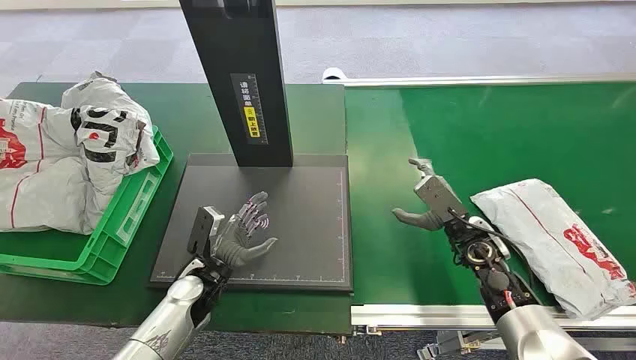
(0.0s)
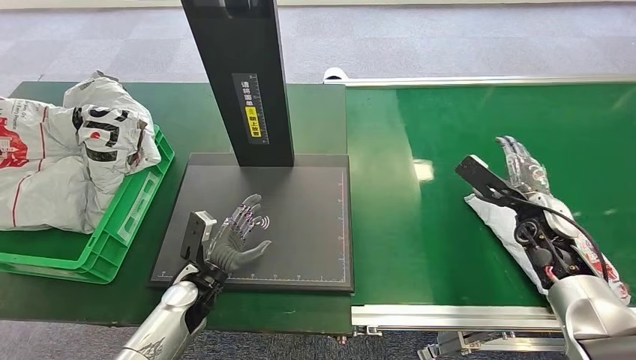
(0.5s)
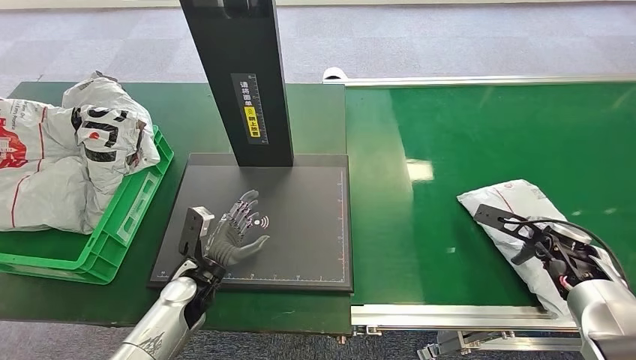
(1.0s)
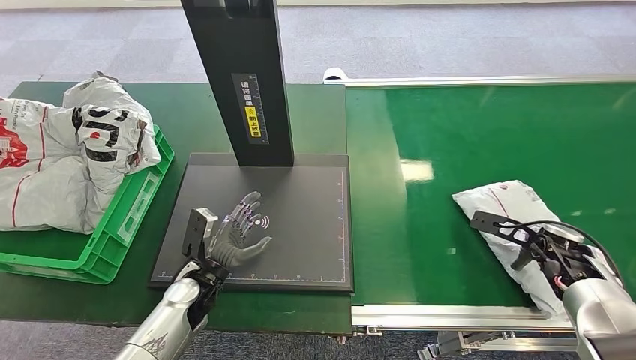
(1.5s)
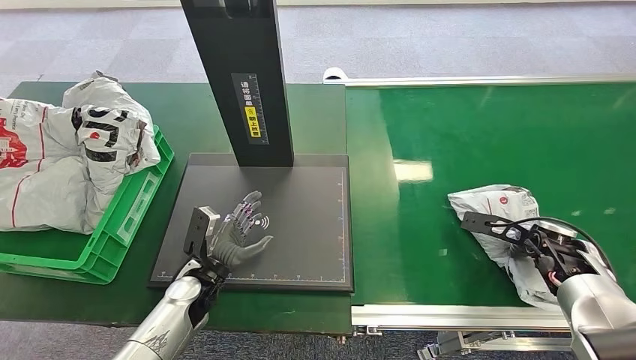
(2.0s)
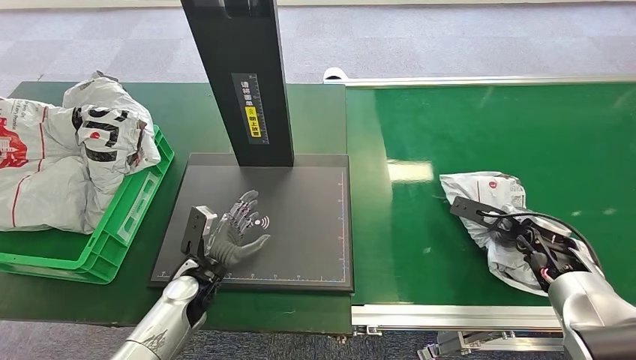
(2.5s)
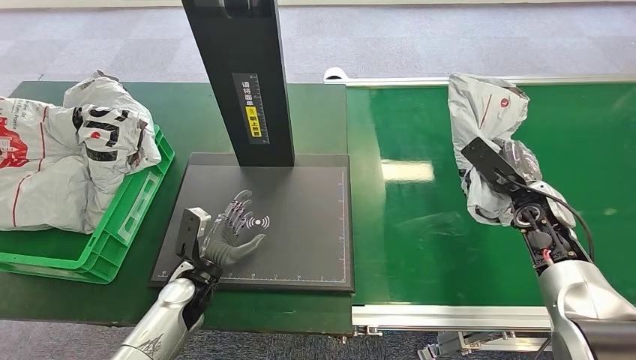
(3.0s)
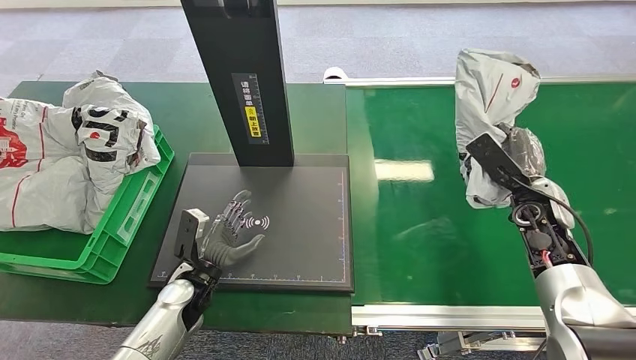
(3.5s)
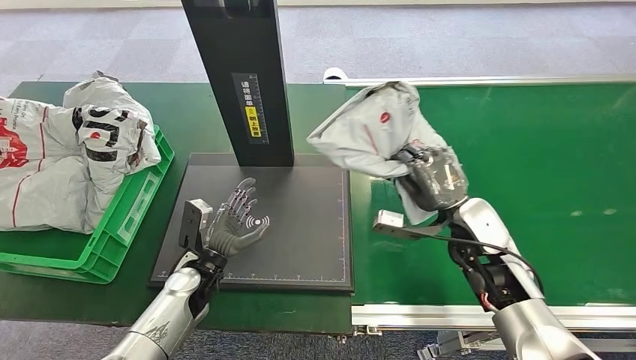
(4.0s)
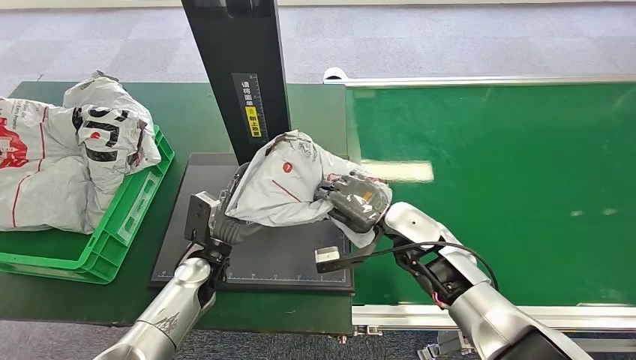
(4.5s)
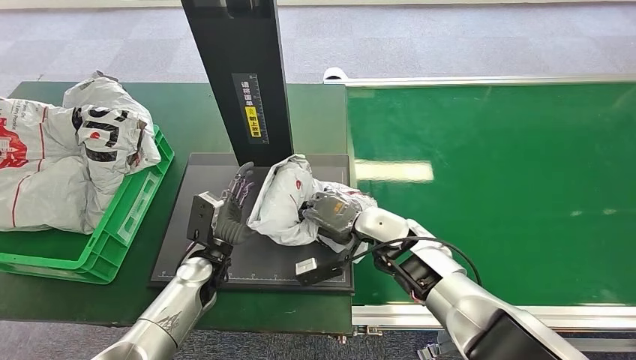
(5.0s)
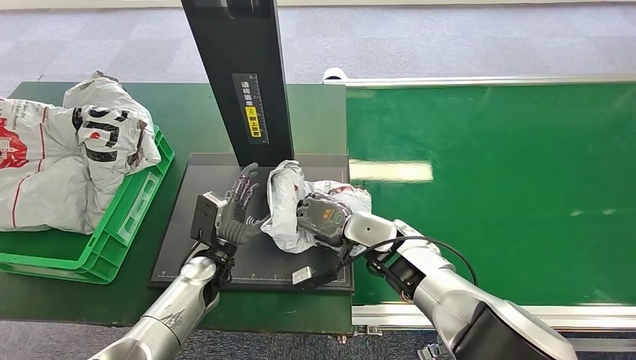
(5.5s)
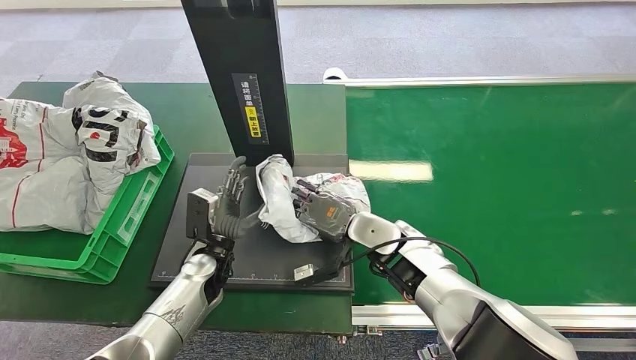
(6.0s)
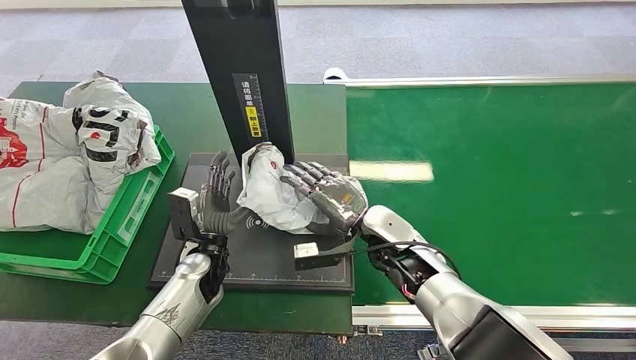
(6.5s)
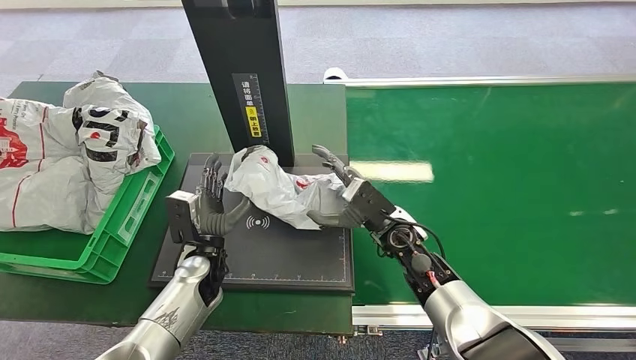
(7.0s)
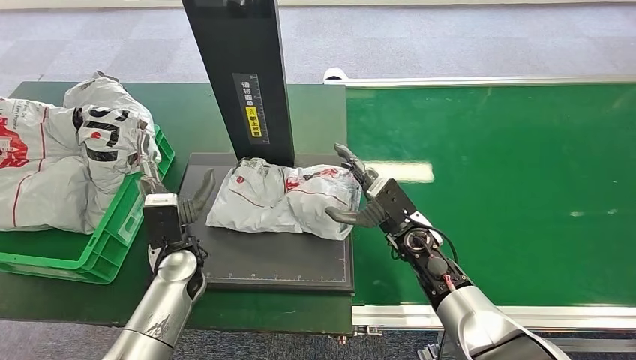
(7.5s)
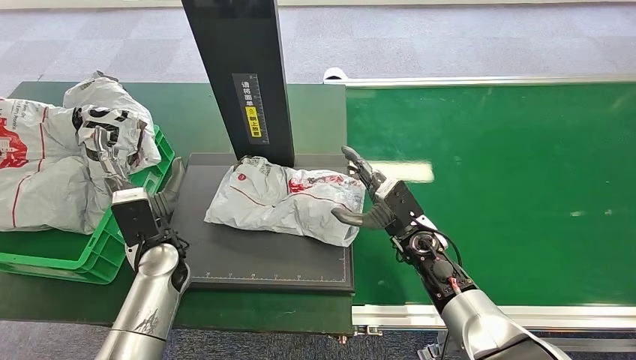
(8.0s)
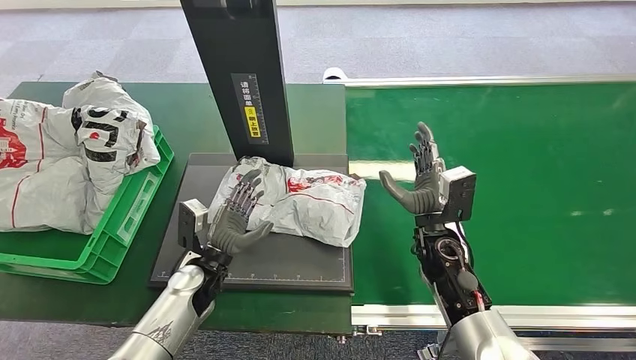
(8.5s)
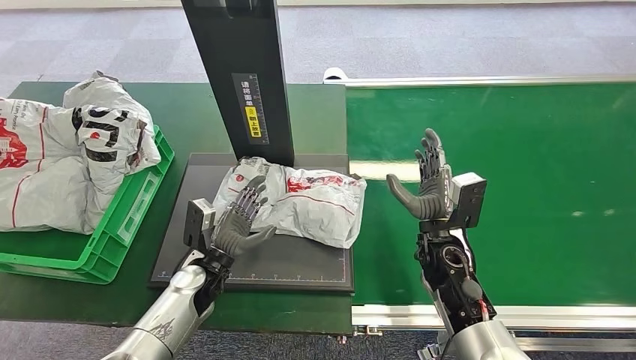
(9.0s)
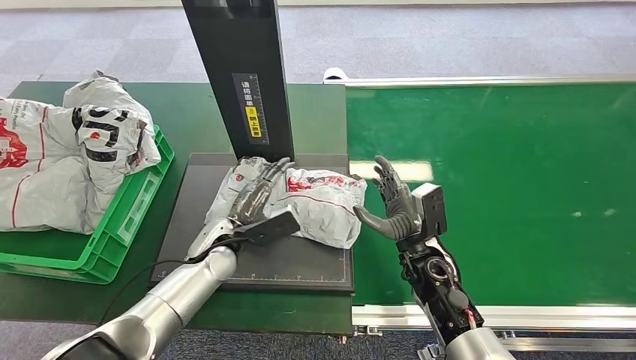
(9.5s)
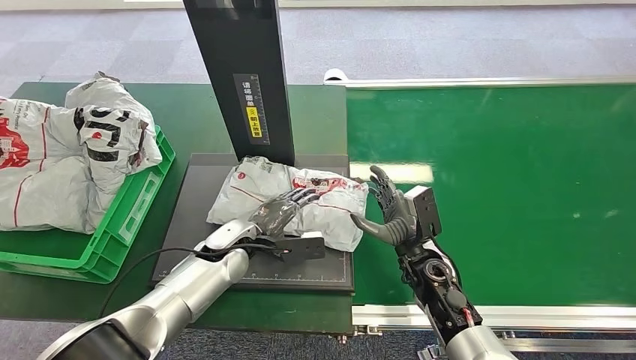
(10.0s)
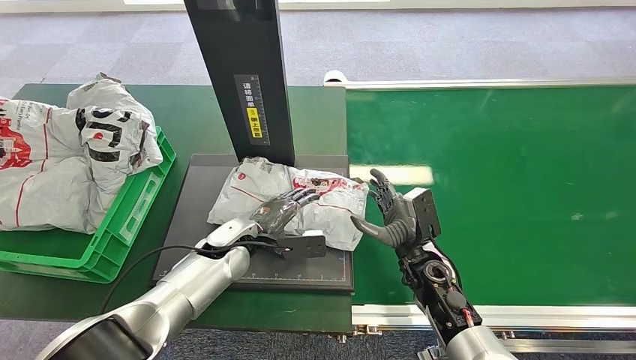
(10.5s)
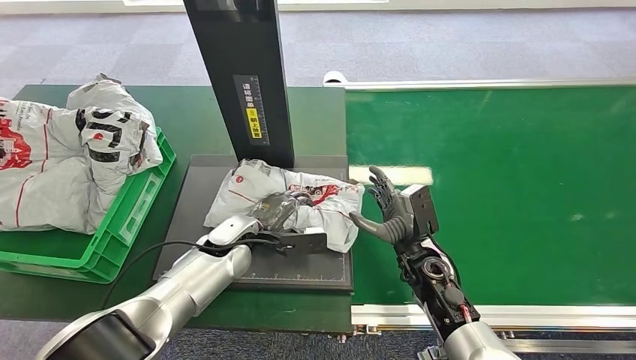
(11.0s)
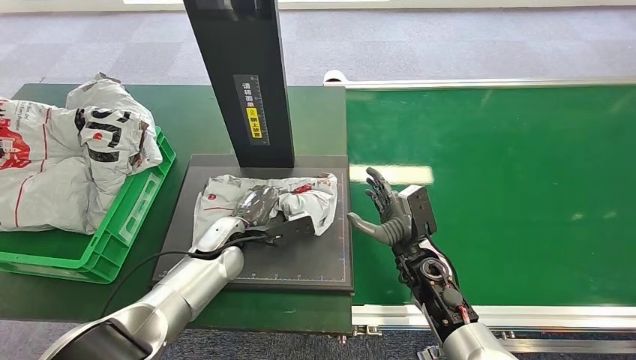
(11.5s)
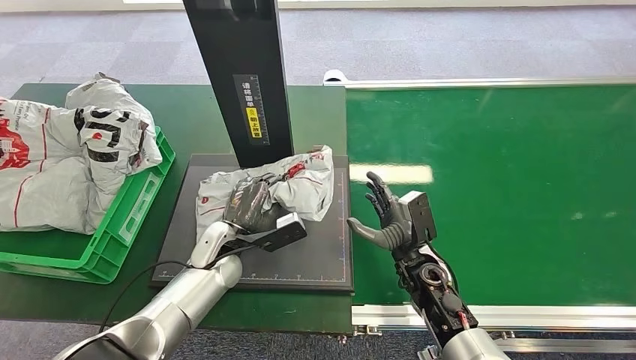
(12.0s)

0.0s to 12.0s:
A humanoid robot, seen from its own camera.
Step, 0.0s to 2.5s: Pick up the package from the conveyor belt.
Step, 3.0s to 6.5s: Place the package onto the inbound machine.
2.0s to 4.0s: The right hand shifts some 15 cm to the left.
6.0s to 8.0s: The left hand travels upward and to the left by some 10 cm. The right hand heads to the right, covering approximately 5 cm.
8.0s to 10.0s: The left hand moves to the right, about 10 cm. The right hand changes place by some 5 cm.

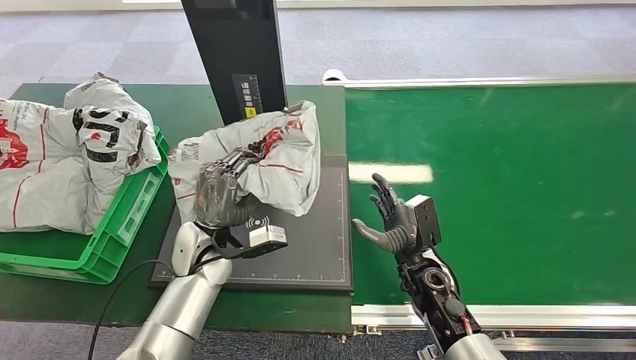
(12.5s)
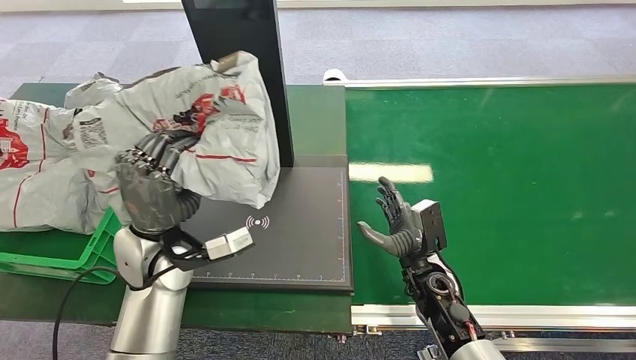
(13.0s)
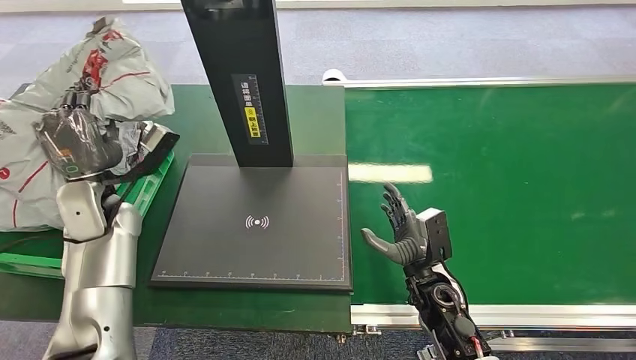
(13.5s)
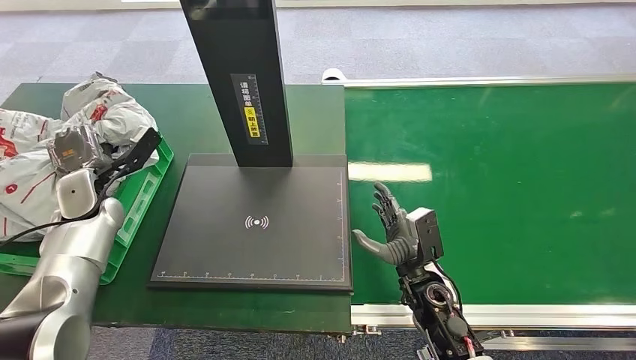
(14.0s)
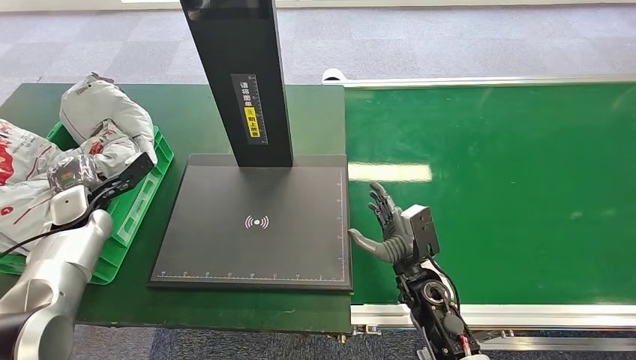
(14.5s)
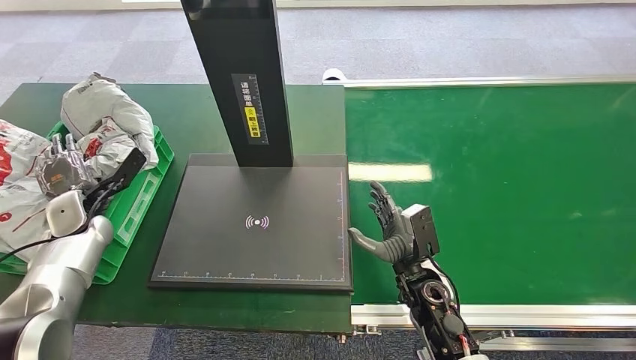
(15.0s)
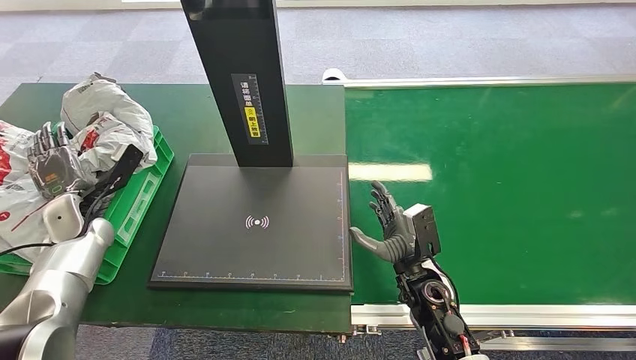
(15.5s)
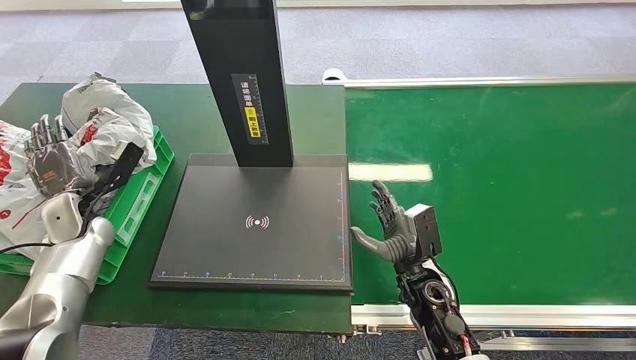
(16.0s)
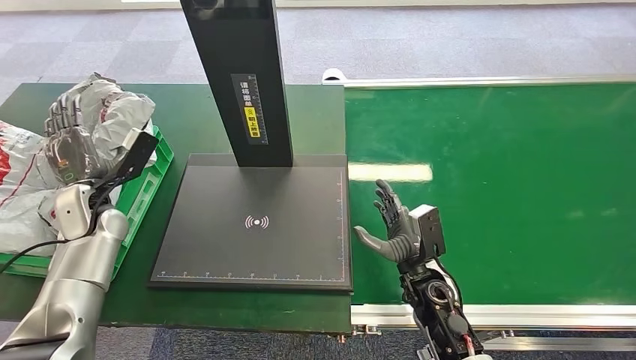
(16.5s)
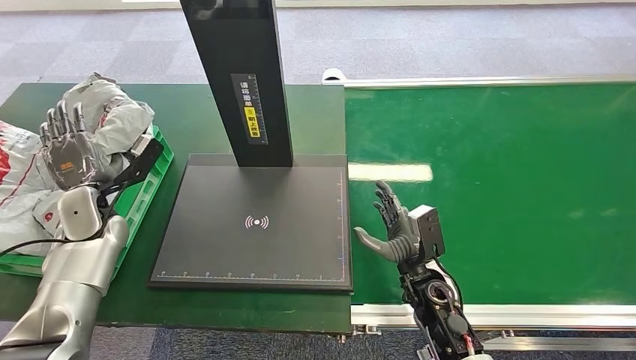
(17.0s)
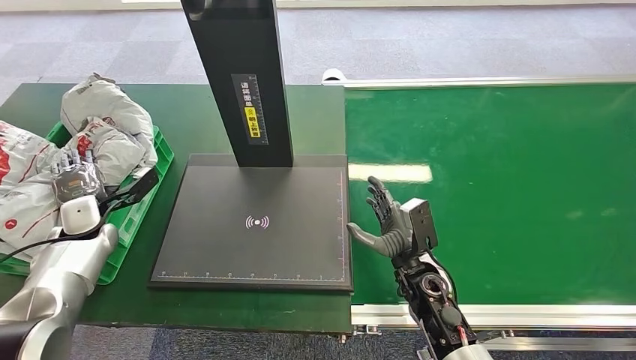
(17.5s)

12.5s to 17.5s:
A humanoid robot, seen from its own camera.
Step, 12.5s to 17.5s: Place the package into the parcel locker.

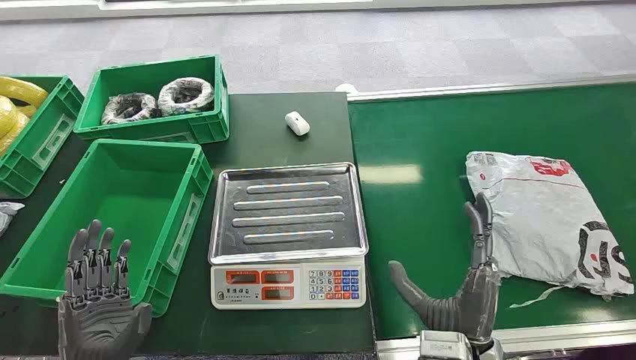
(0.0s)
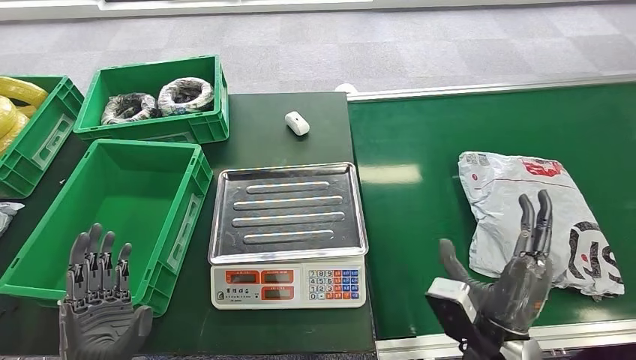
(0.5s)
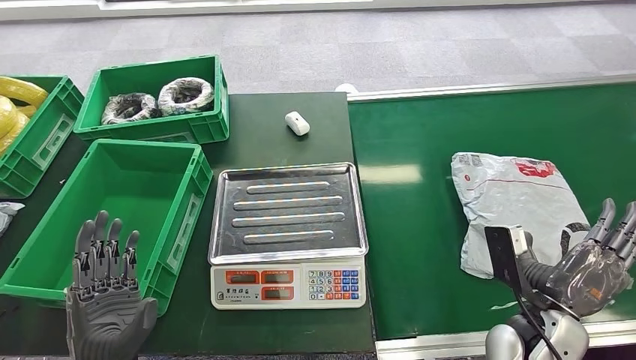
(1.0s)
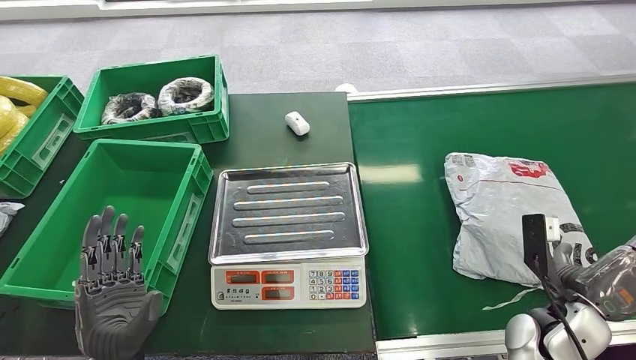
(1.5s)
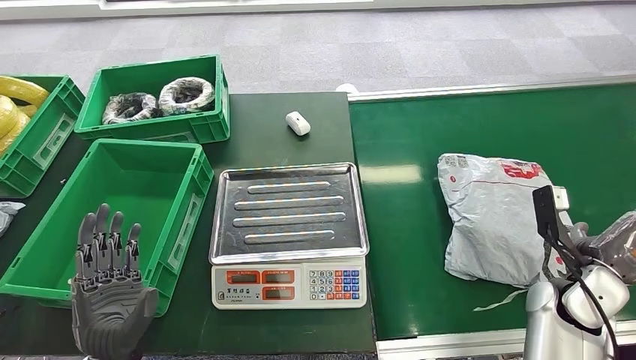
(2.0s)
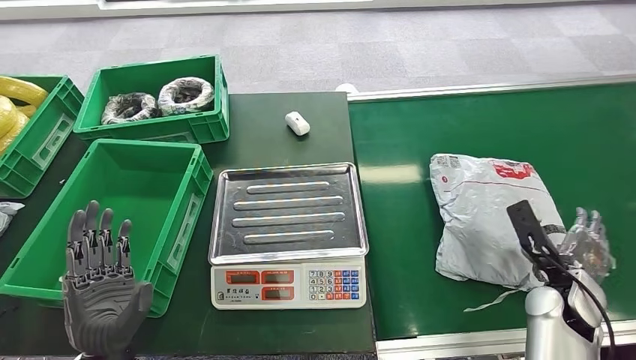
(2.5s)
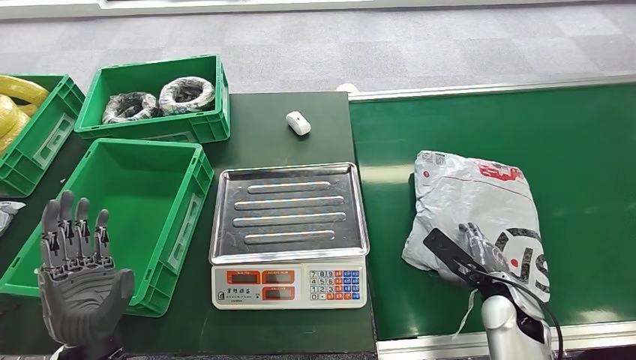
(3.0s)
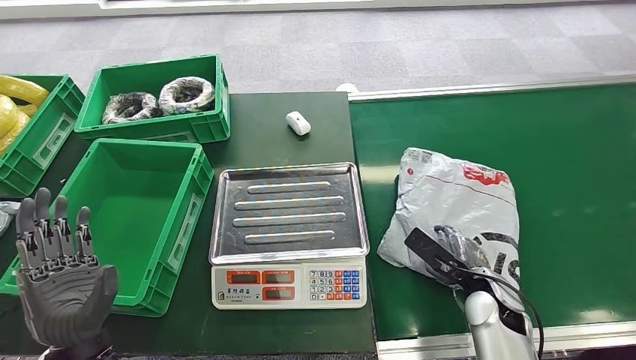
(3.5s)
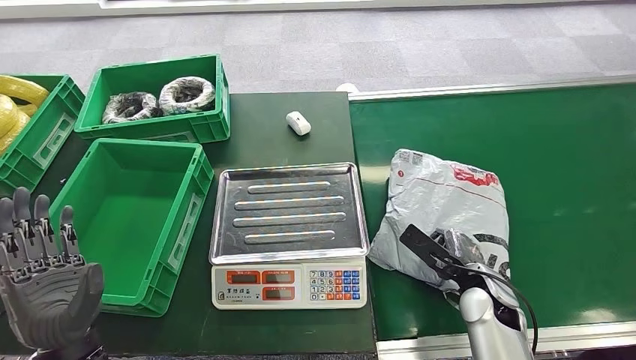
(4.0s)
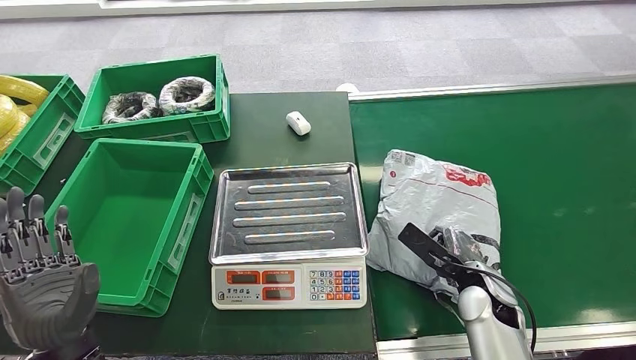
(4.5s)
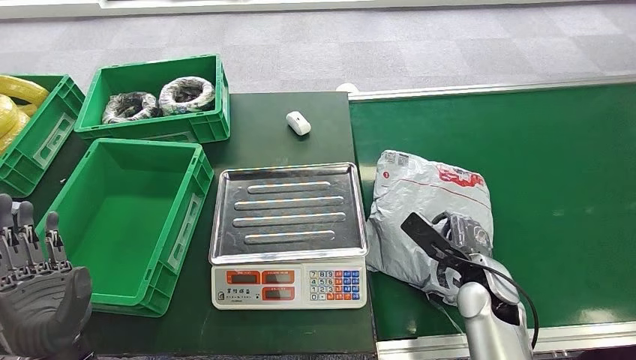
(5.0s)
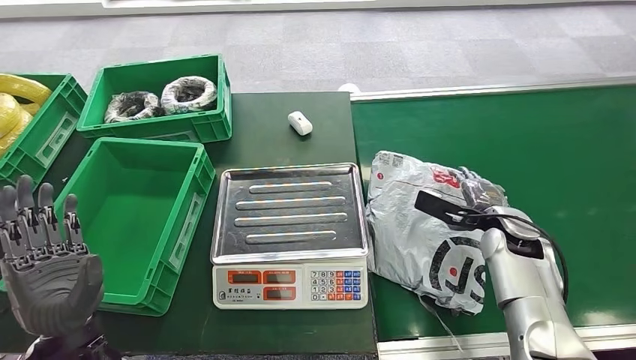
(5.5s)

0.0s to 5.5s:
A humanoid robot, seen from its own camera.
2.0s to 3.5s: The right hand is displaced to the left and downward by some 10 cm.
3.5s to 5.5s: The right hand heads forward, to the right and upward, covering about 15 cm.
